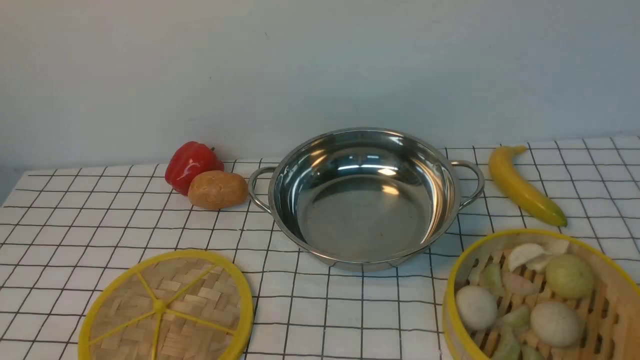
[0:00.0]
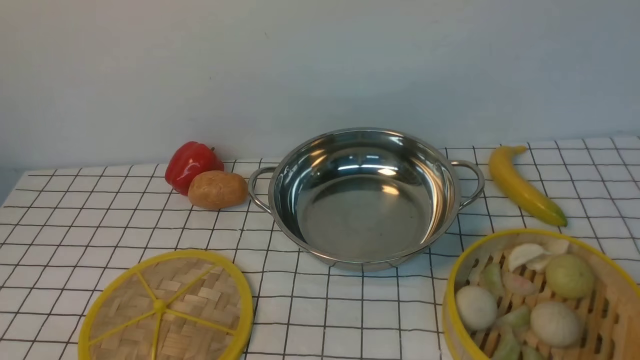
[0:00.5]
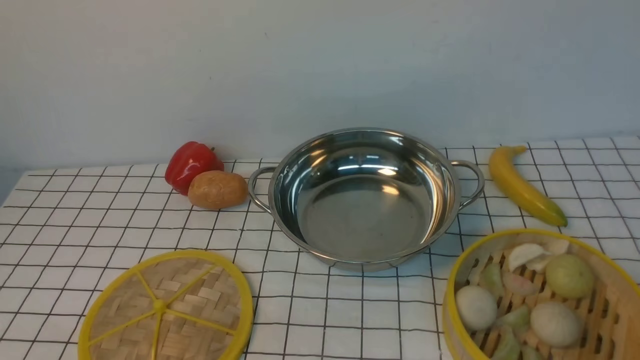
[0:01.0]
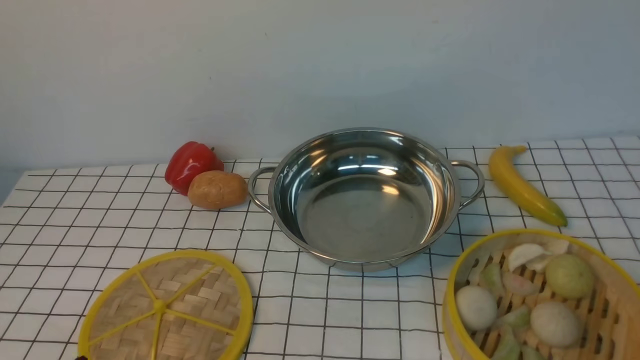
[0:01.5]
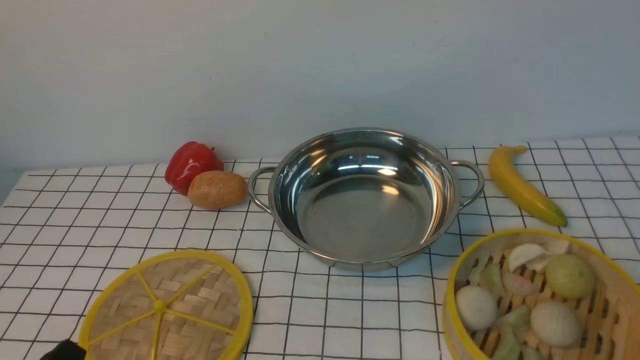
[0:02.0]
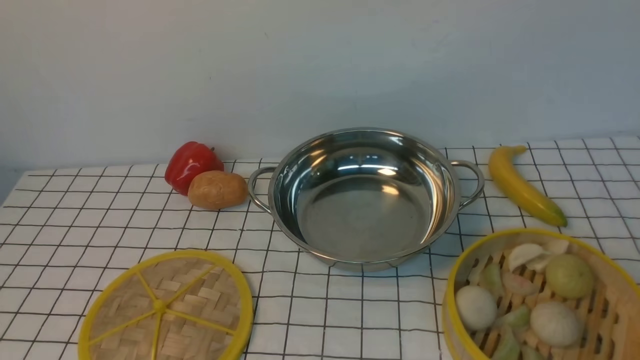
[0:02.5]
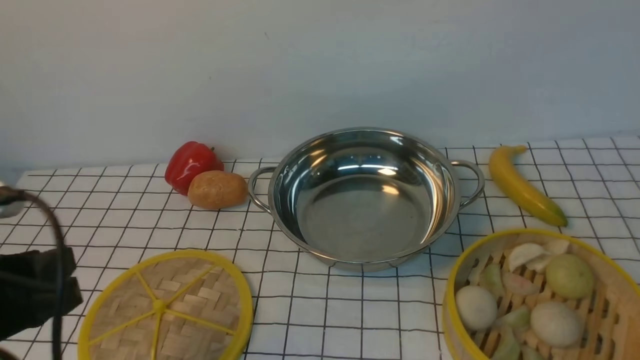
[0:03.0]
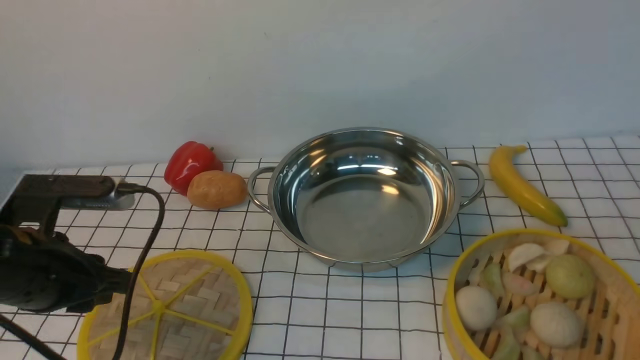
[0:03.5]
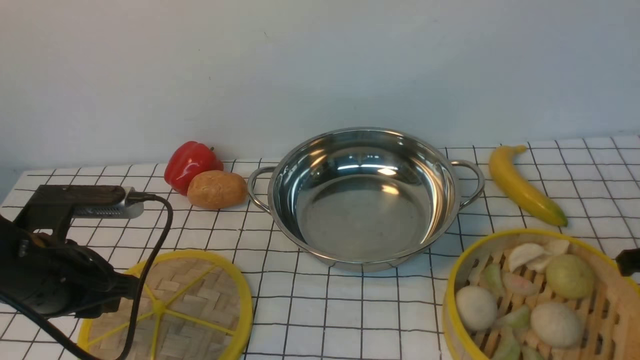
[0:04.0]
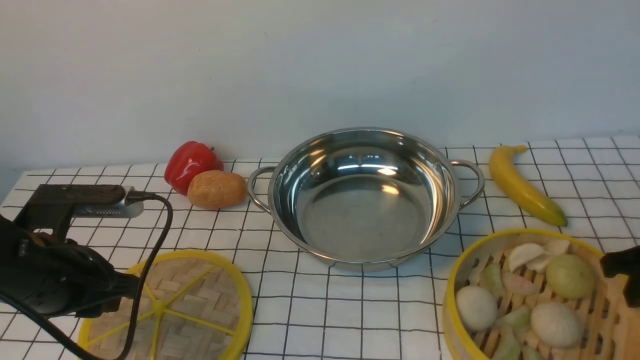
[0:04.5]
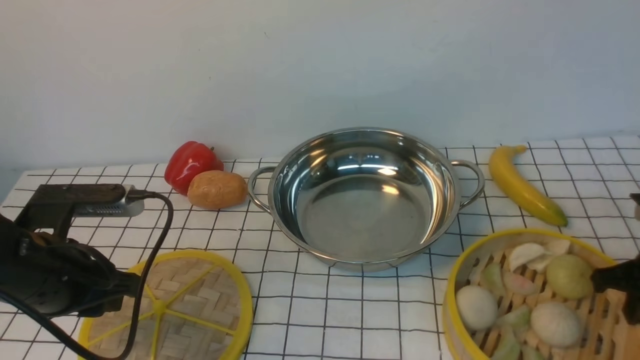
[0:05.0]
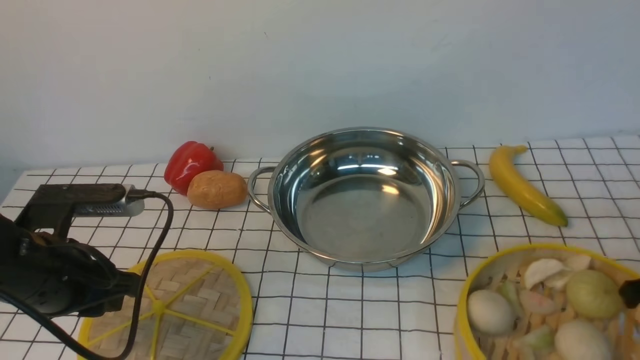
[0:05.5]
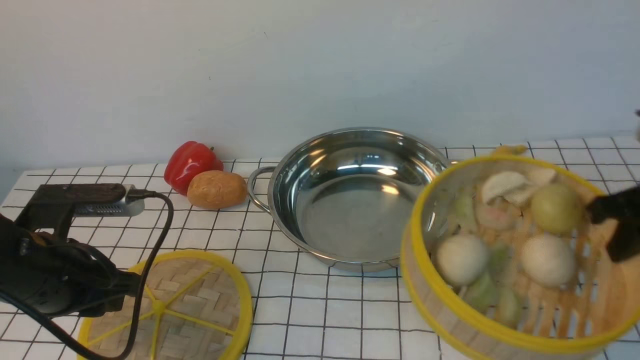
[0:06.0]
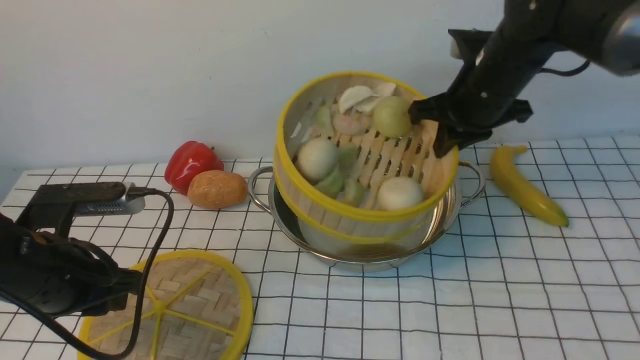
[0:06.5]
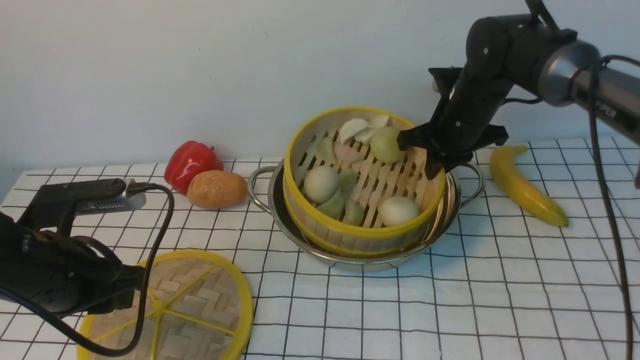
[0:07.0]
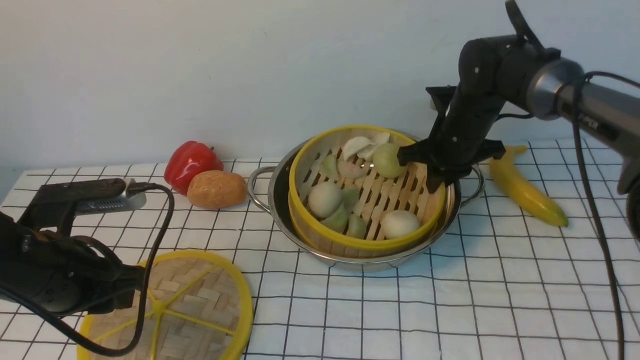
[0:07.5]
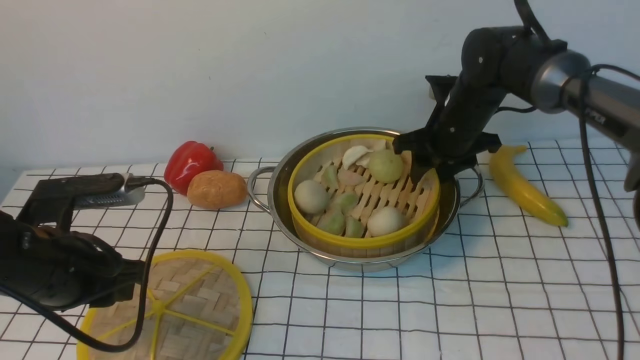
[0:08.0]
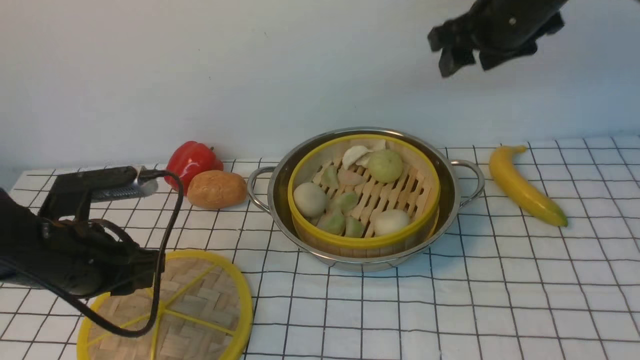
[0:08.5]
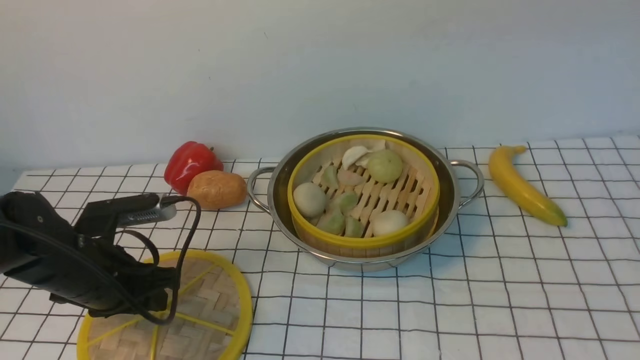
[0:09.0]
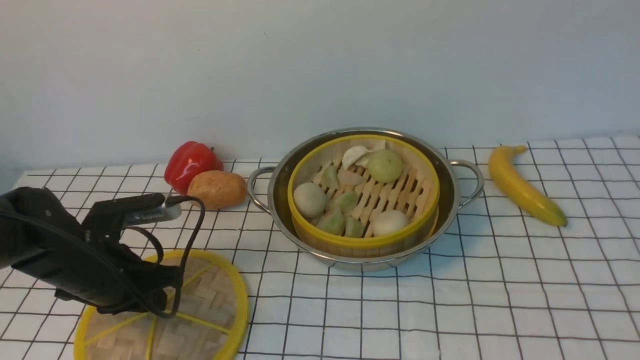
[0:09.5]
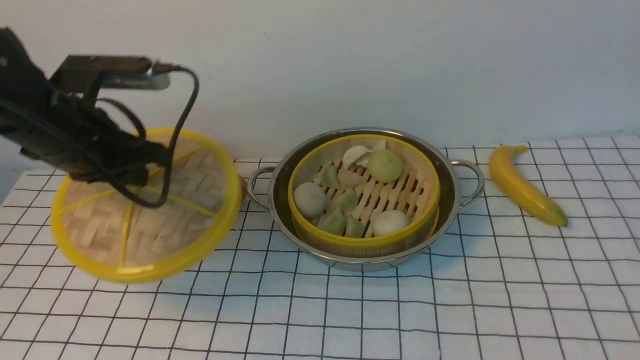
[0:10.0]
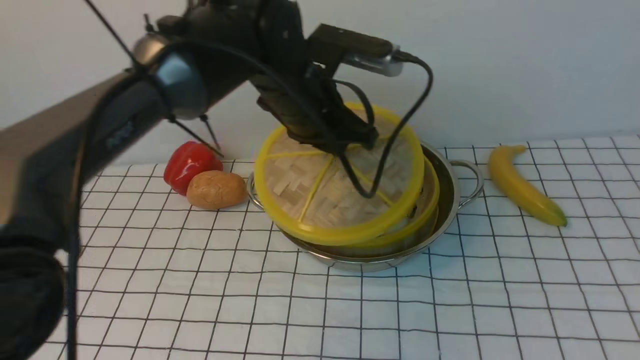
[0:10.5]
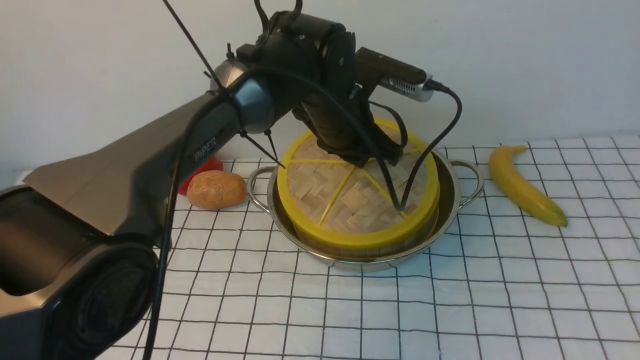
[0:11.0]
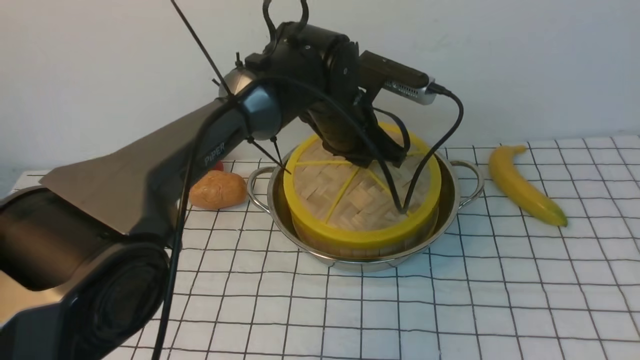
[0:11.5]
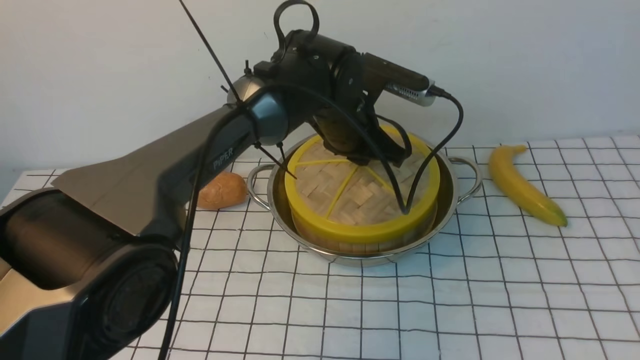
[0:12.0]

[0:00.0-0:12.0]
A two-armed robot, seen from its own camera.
Task of the whole recording: place the steamer in the pot on the white tablecloth, and put the lid on the steamer.
Step, 0:00.0 to 0:05.0: use the right arm to lift the steamer closest to it.
Step, 0:05.5 to 0:08.0: use the right arm to put the steamer into the iron steamer pot in the middle.
Step, 0:08.5 to 0:09.5: use the left arm to lift the lid of the steamer.
0:02.0 to 0:04.0: The left gripper moves forward, about 20 cm.
0:04.0 to 0:06.0: The right gripper shifts some 10 cm upward and to the left, and closes its fingers.
0:06.0 to 0:08.0: The right gripper heads forward and to the left, covering approximately 20 cm, and opens up.
0:08.0 to 0:10.0: The right gripper shifts some 50 cm upward and backward, while the left gripper is displaced forward and upward by about 10 cm.
0:10.0 to 0:12.0: The left gripper shifts approximately 25 cm to the right and forward; the right gripper goes some 5 cm backward.

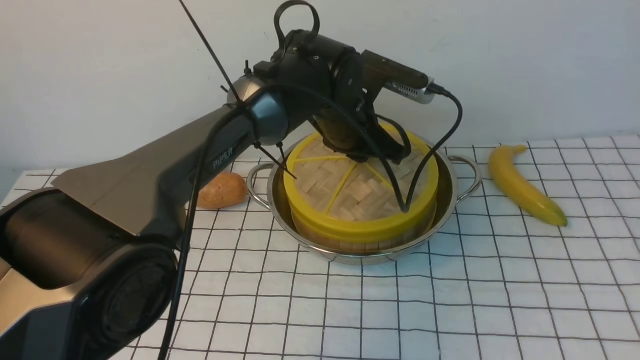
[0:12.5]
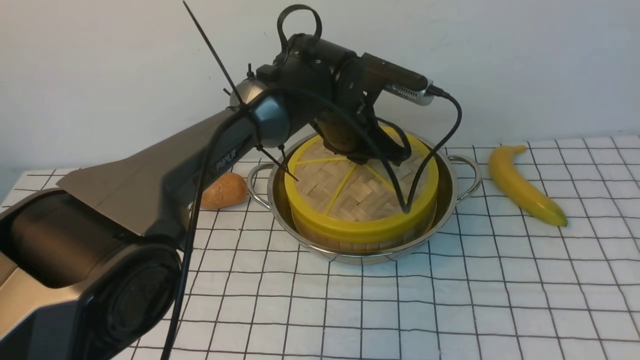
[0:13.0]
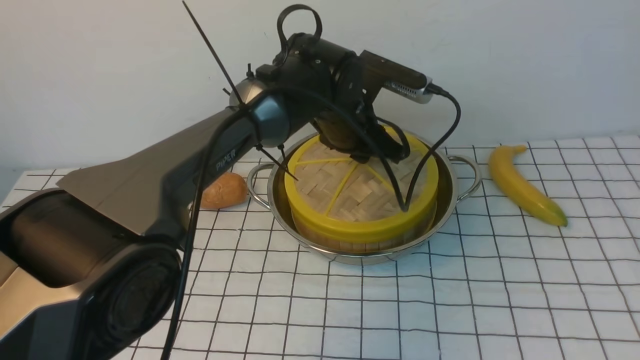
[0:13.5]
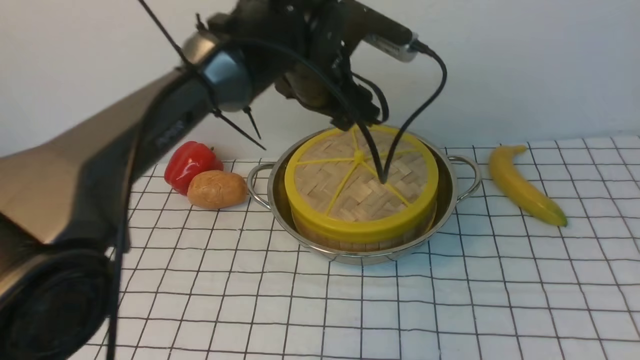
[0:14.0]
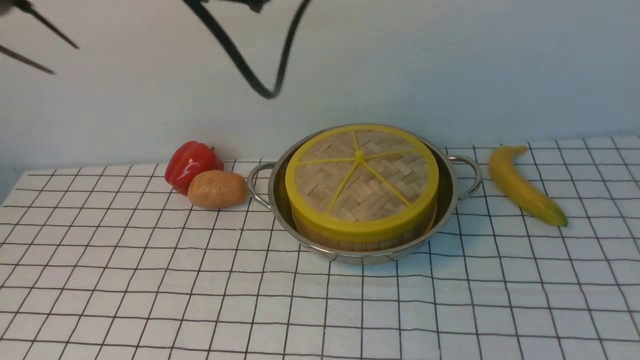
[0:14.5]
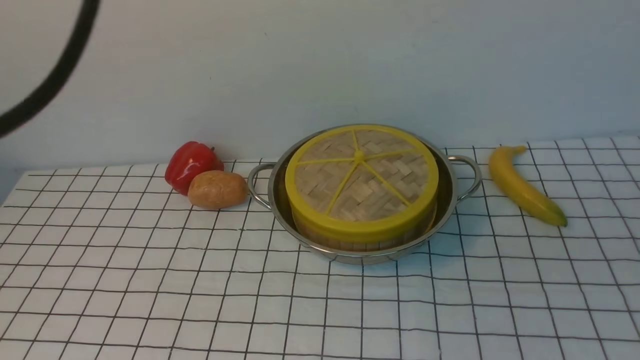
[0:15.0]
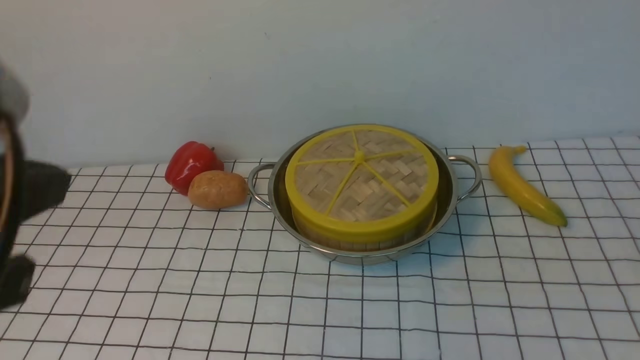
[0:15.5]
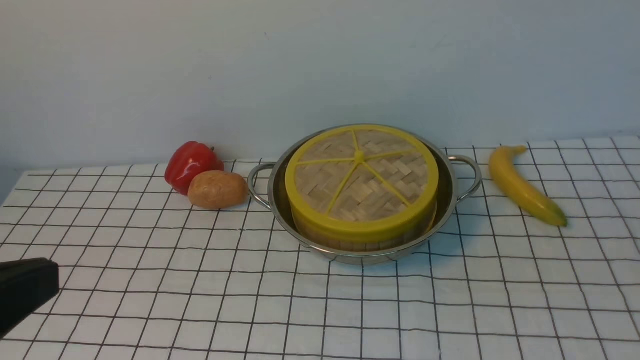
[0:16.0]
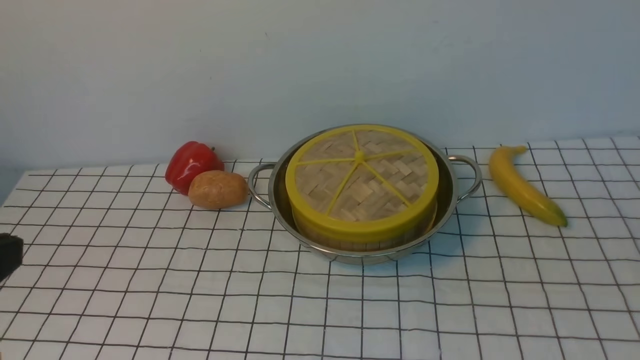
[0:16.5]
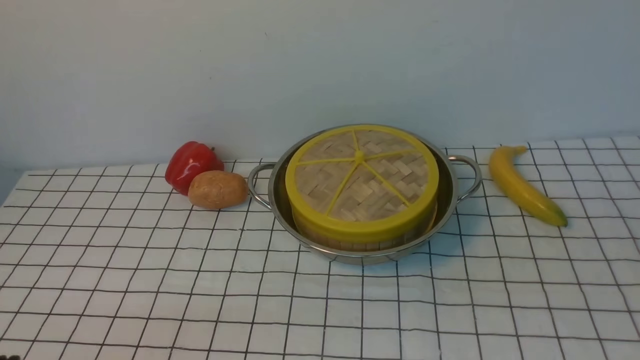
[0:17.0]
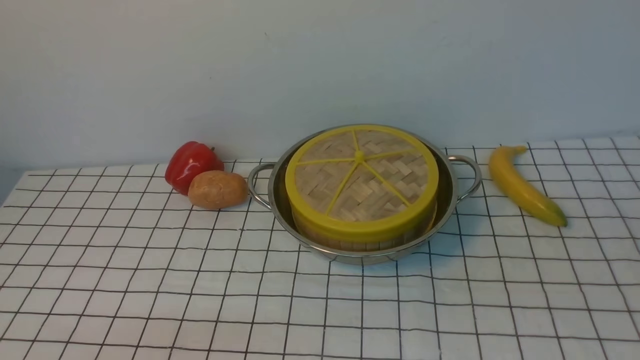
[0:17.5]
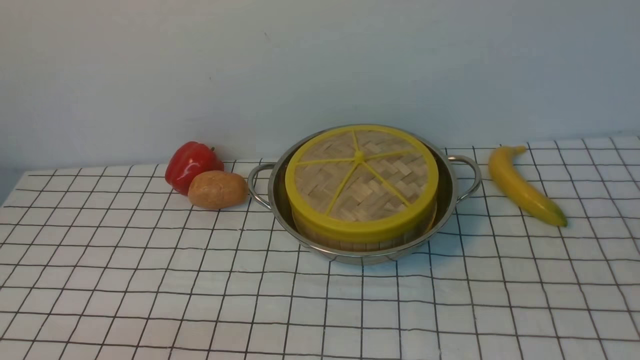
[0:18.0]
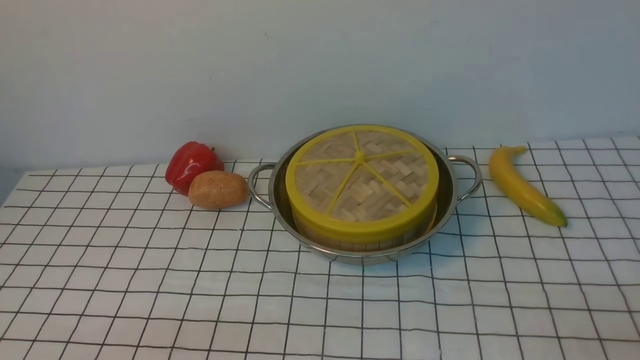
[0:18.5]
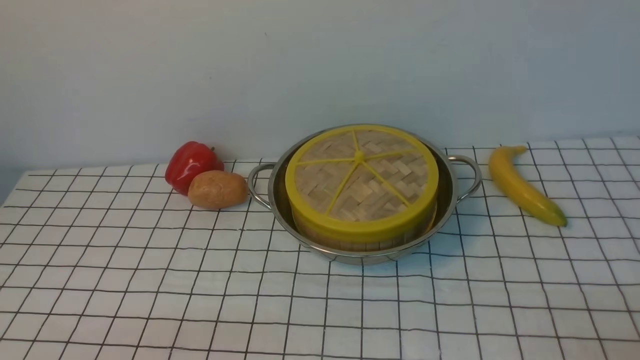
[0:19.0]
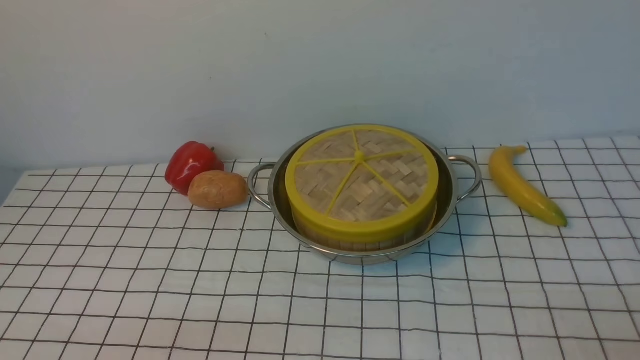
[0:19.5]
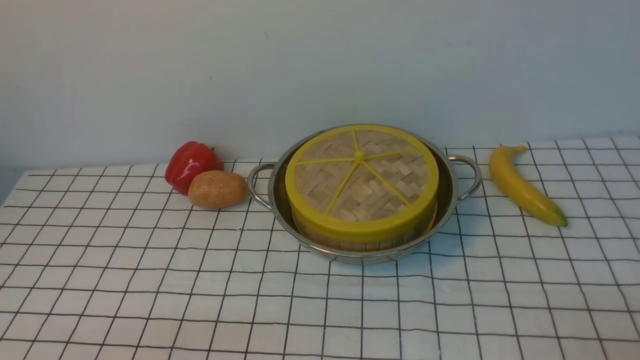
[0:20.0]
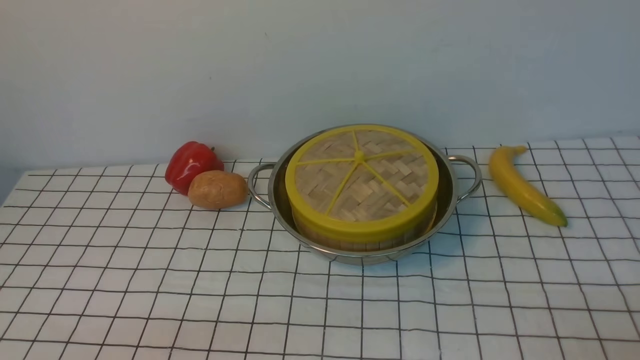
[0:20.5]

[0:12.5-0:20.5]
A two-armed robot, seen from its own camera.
Task of the whole recording: place the steamer in the pot on the white tablecloth, and put the lid on the steamer.
0:12.5 to 0:14.5: The left gripper moves upward, to the left and backward, roughly 30 cm, and opens and closes again, while the right gripper shifts some 10 cm downward.
0:14.5 to 0:16.5: The right gripper is displaced downward by roughly 10 cm, and closes up. The left gripper heads backward, to the left and downward, covering roughly 30 cm.
0:18.5 to 0:20.5: Both grippers stay about where they are.
